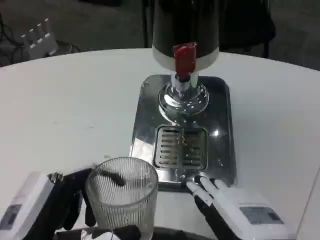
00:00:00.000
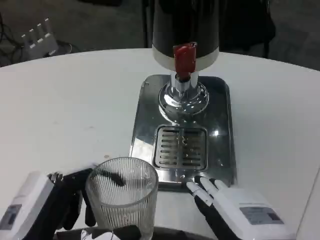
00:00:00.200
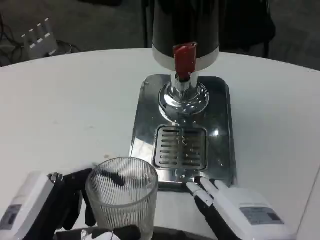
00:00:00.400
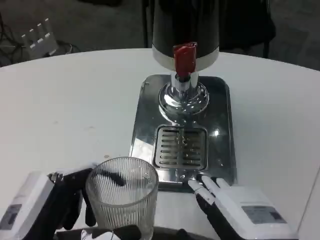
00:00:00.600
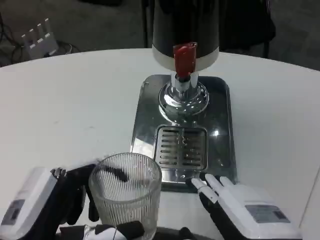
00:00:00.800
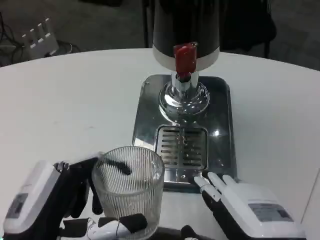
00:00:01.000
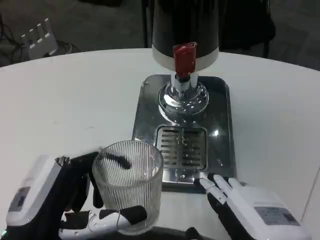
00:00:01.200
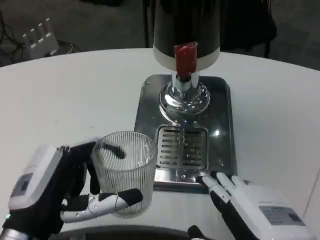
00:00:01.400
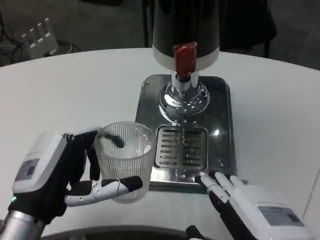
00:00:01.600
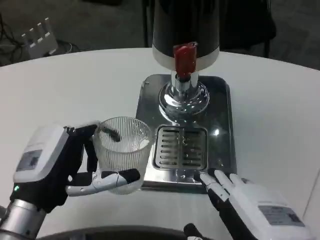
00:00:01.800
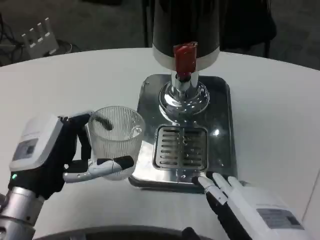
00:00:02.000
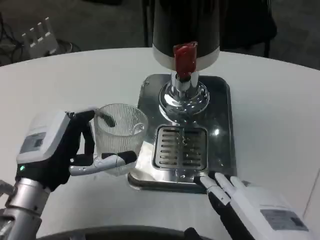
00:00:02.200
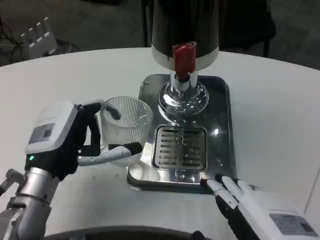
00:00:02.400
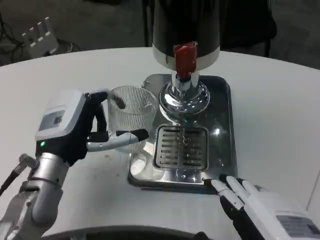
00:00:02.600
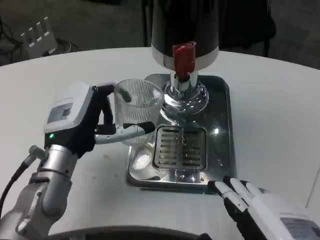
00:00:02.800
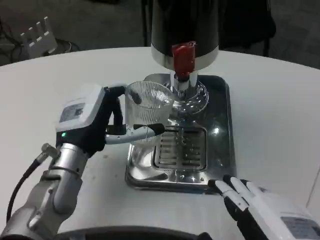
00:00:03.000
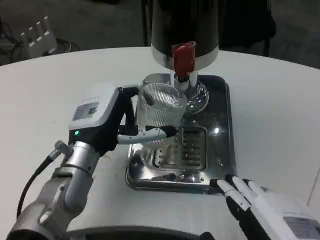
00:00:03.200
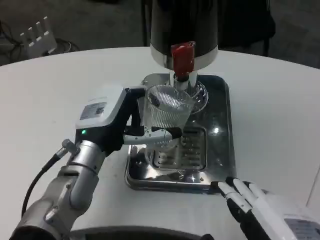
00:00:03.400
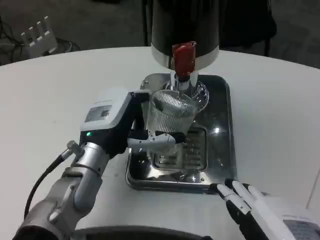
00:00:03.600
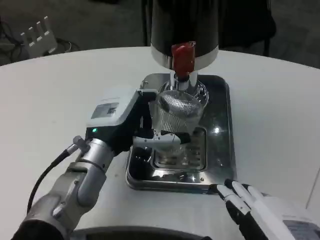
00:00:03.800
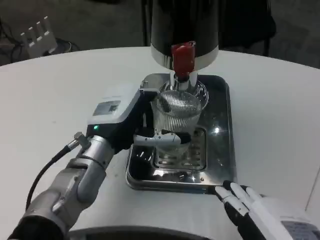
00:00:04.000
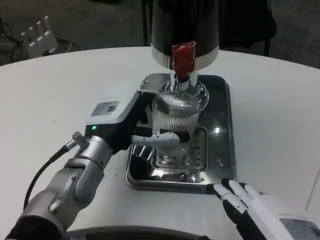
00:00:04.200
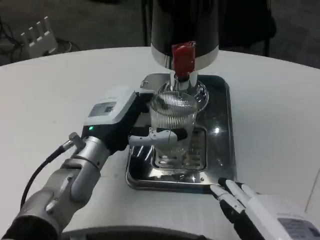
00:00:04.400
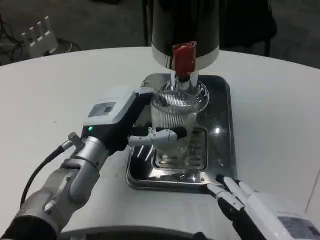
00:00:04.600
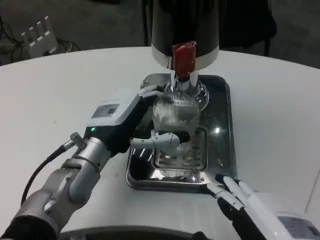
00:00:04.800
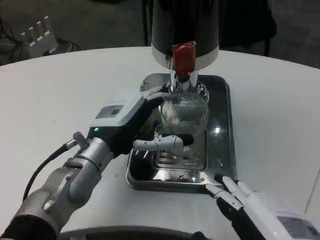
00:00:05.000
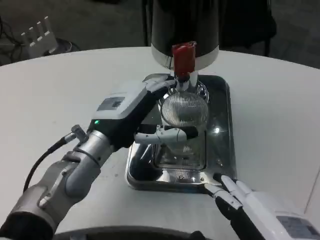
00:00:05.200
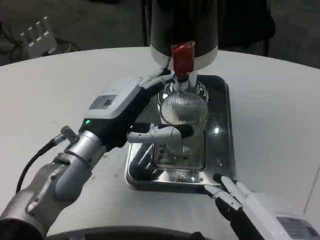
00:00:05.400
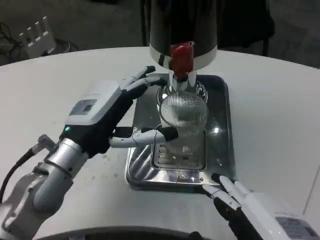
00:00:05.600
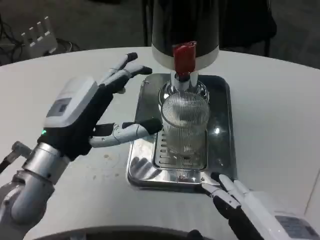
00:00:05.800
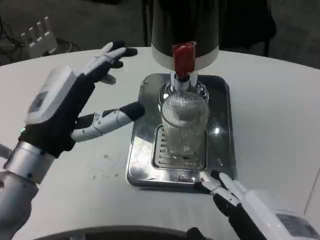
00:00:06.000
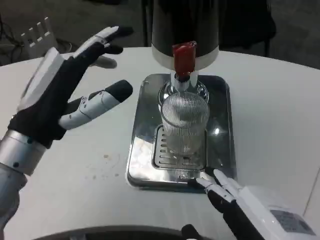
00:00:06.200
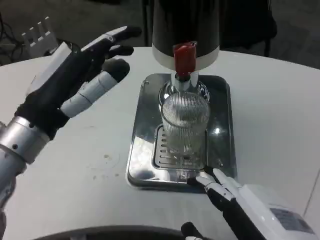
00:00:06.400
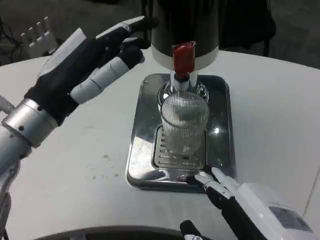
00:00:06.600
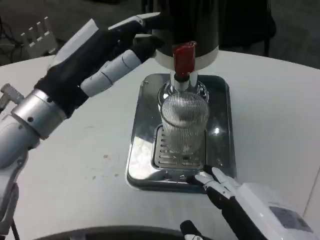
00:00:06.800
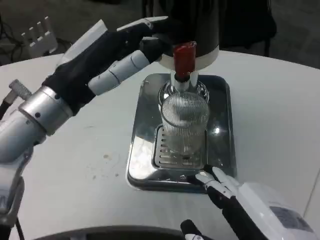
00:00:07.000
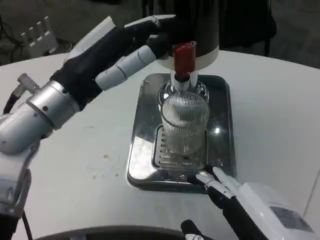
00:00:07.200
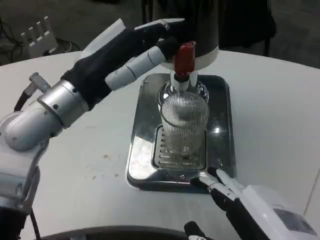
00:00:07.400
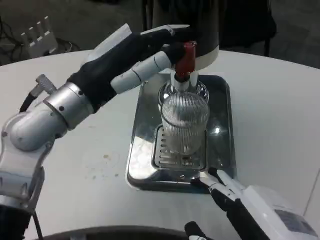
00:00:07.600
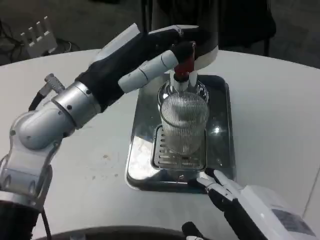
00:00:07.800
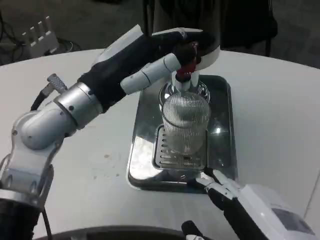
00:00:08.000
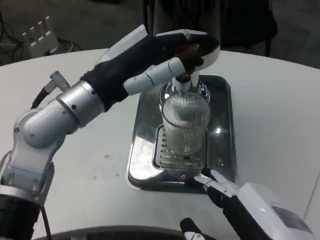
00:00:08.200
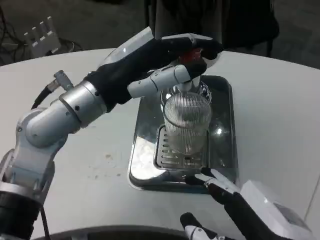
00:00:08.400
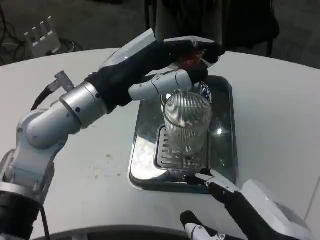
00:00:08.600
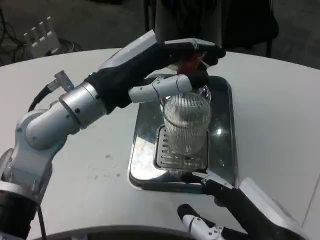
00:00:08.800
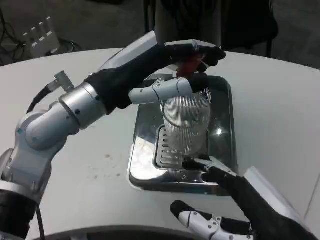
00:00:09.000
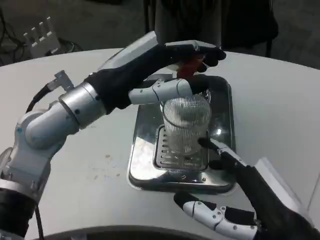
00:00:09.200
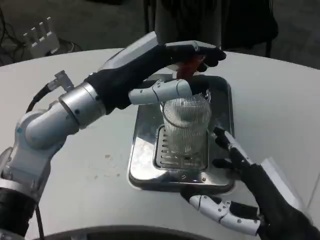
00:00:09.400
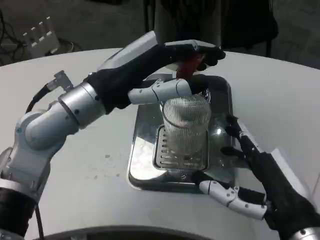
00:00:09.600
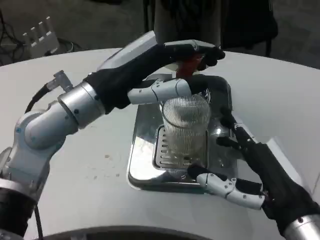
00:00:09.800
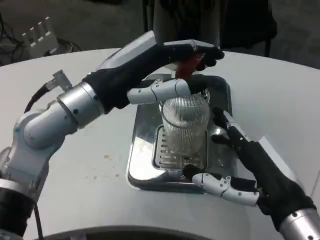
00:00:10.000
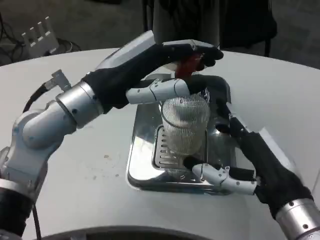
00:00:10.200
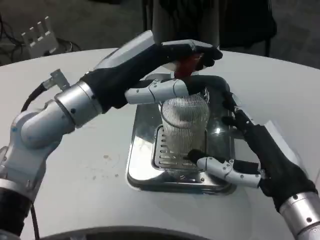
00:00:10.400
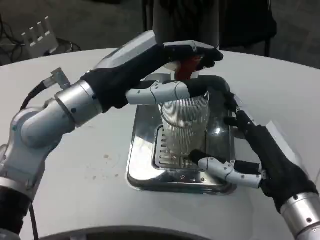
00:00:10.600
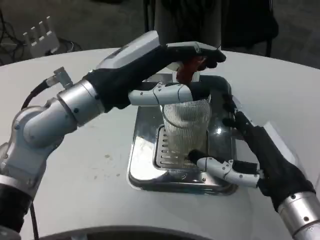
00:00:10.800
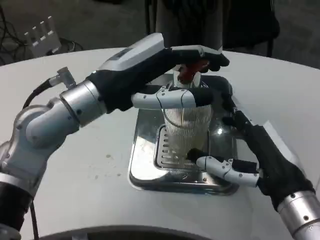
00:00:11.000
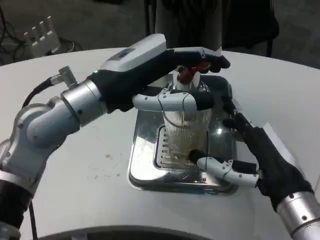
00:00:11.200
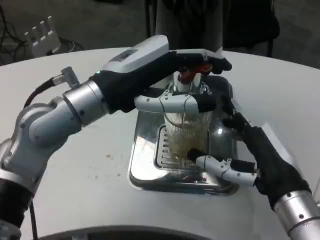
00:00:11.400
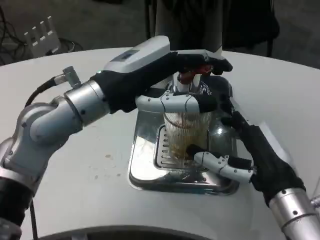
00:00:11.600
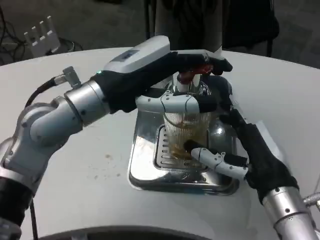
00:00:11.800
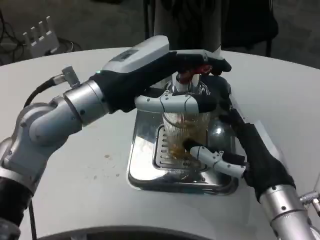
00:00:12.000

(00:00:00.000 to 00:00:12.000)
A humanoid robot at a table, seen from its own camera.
Task of the whole recording: Grasp the cup under the faucet to collect the drink, then remove the cup.
00:00:00.000 - 00:00:01.600: The left hand shifts some 5 cm forward.
00:00:01.600 - 00:00:03.000: The left hand moves forward, some 10 cm.
00:00:03.000 - 00:00:04.400: The hands stay close to where they were, moving slightly.
00:00:04.400 - 00:00:06.000: The left hand goes some 10 cm backward and to the left.
00:00:06.000 - 00:00:07.600: The left hand goes some 5 cm upward.
00:00:09.000 - 00:00:10.400: The right hand heads forward, covering approximately 10 cm.

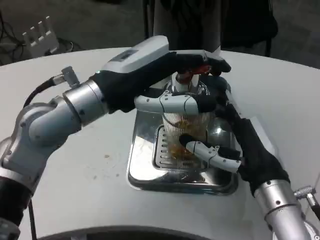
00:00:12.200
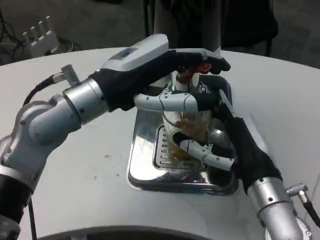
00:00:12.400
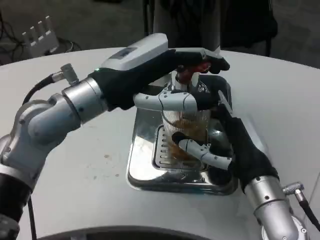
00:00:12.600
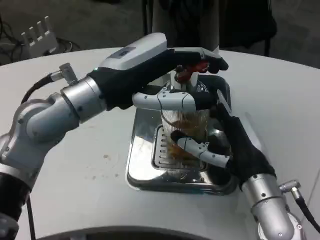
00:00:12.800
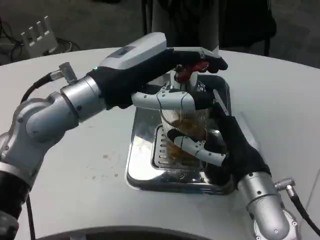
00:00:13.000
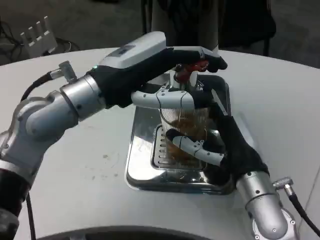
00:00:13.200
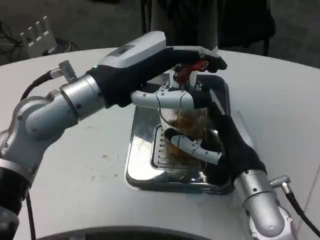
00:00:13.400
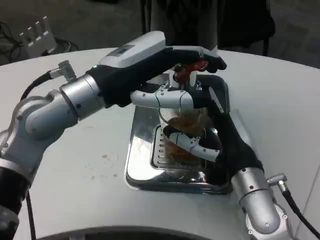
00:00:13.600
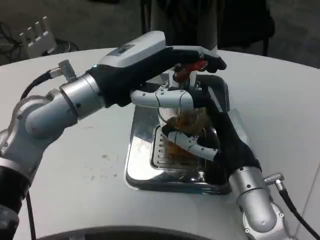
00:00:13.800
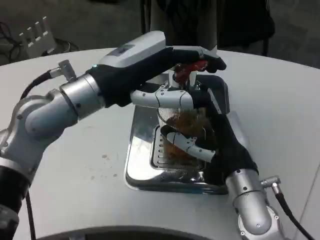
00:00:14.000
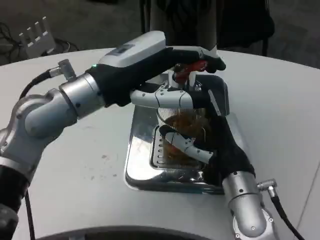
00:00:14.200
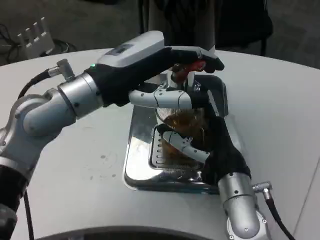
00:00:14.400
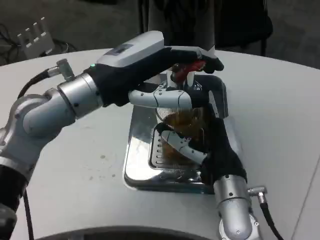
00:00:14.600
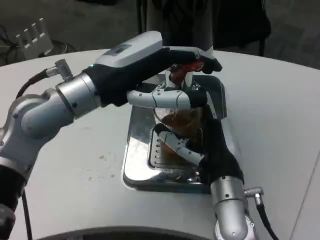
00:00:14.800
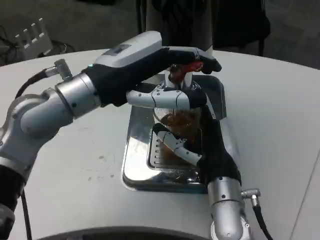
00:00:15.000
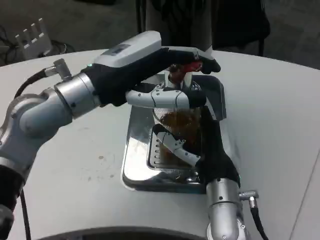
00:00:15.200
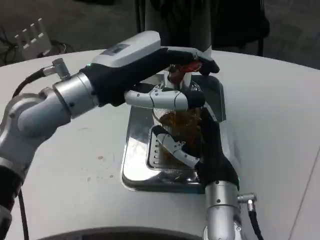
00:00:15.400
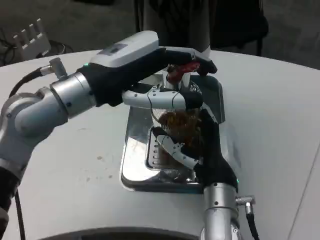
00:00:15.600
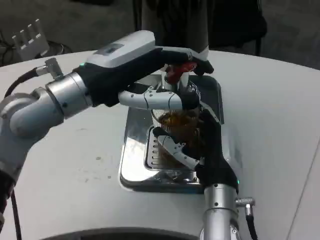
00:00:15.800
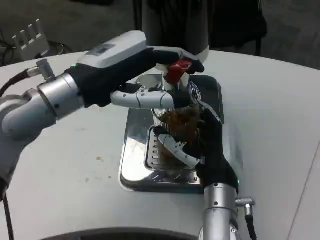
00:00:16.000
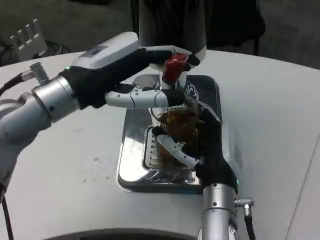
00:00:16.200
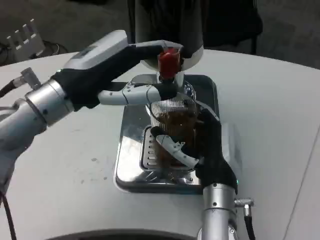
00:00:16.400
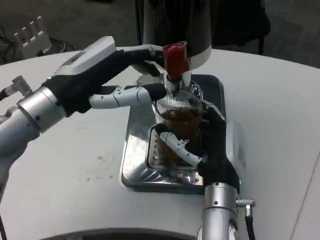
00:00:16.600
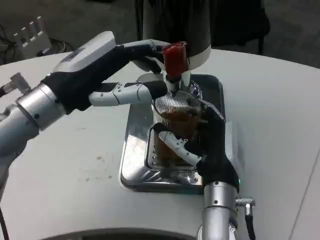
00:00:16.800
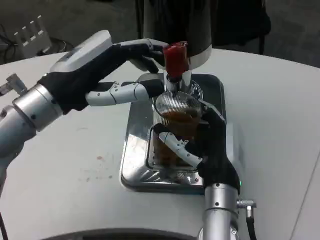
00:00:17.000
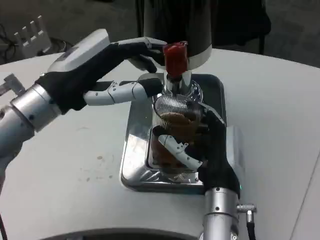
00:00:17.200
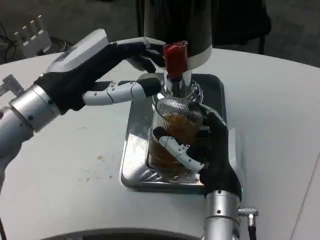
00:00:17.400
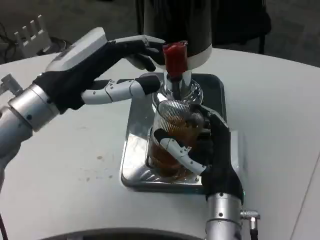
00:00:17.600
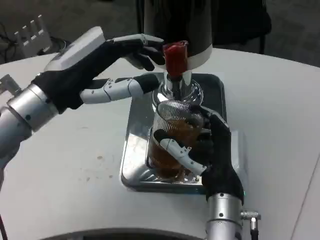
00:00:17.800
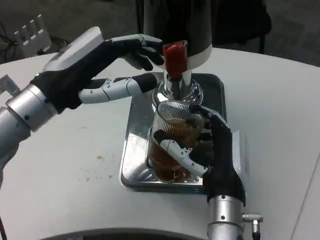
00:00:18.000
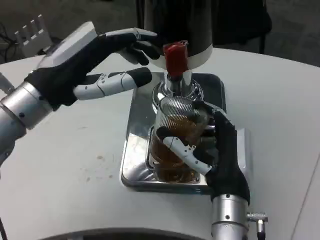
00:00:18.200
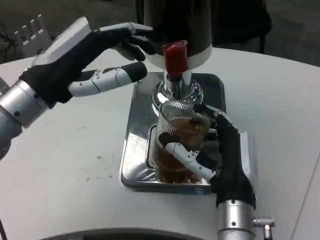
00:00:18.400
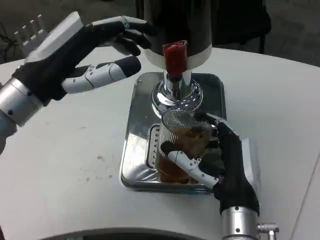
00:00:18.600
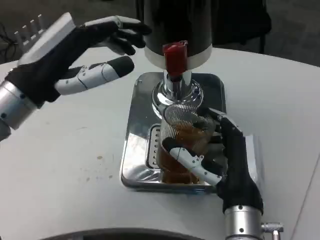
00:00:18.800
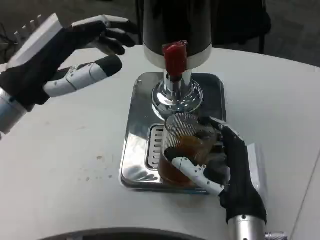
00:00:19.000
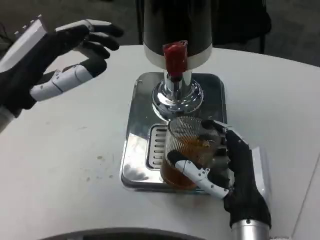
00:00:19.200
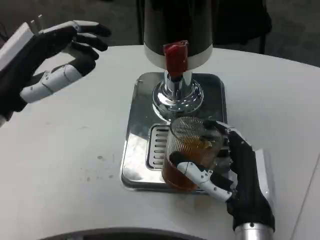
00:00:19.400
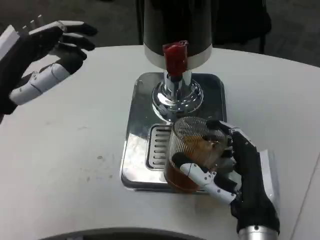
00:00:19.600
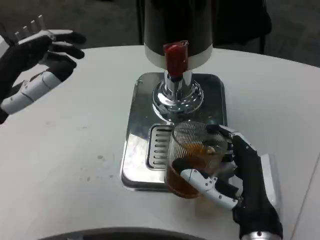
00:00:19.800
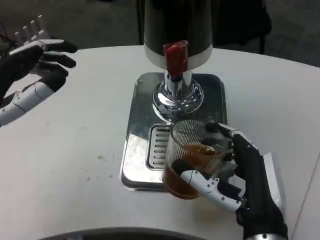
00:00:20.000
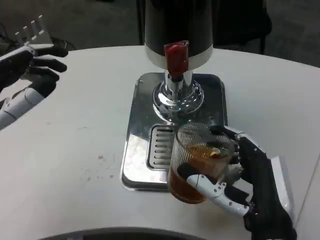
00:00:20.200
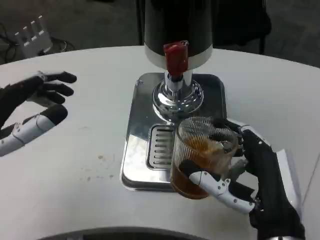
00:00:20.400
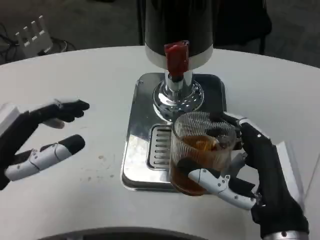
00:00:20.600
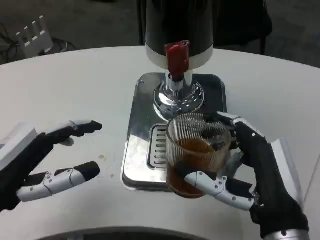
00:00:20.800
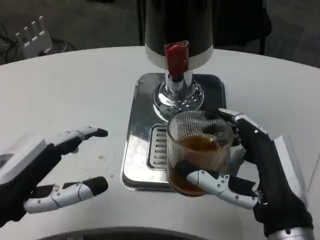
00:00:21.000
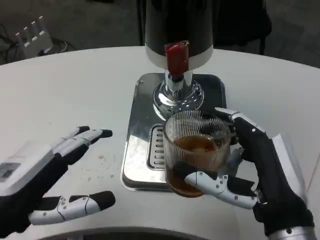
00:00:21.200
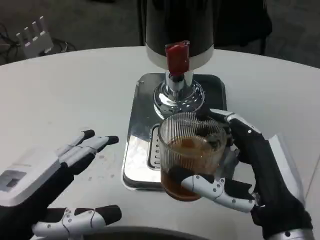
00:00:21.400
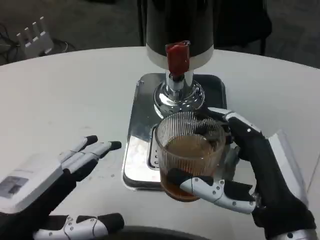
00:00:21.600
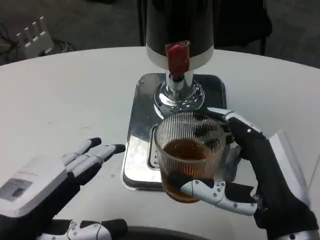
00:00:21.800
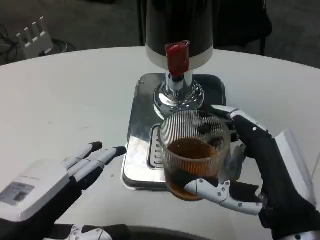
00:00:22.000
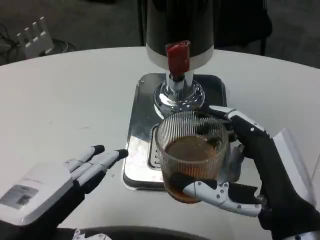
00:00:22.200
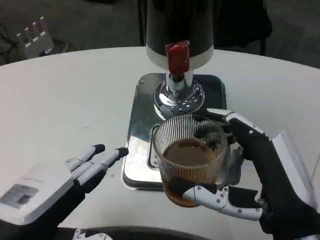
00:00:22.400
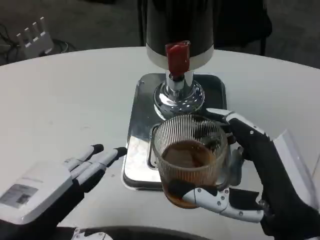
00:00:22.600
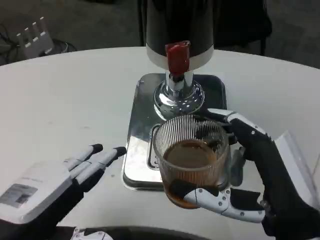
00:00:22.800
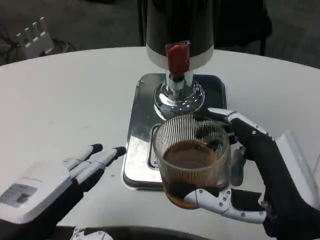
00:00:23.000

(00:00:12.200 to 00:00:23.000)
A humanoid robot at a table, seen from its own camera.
Task of the whole recording: Grasp the cup under the faucet to collect the drink, then remove the cup.
00:00:13.800 - 00:00:15.200: The right hand changes place by some 5 cm.
00:00:18.400 - 00:00:20.000: The left hand shifts about 10 cm to the left and backward. The right hand heads backward, covering approximately 5 cm.
00:00:20.000 - 00:00:21.400: The left hand moves backward and downward, roughly 10 cm.
